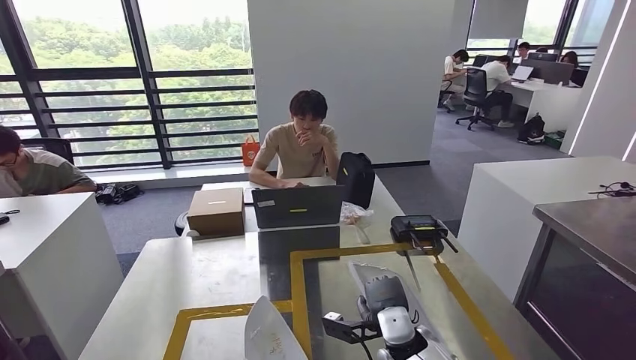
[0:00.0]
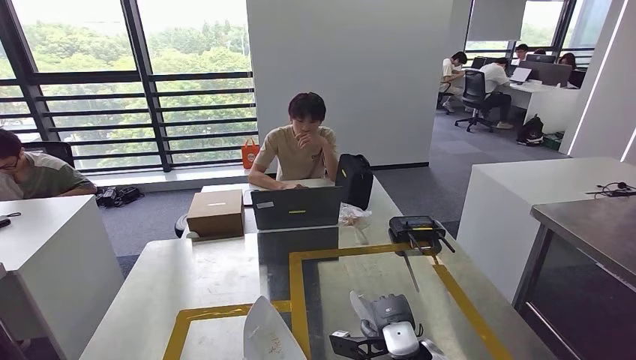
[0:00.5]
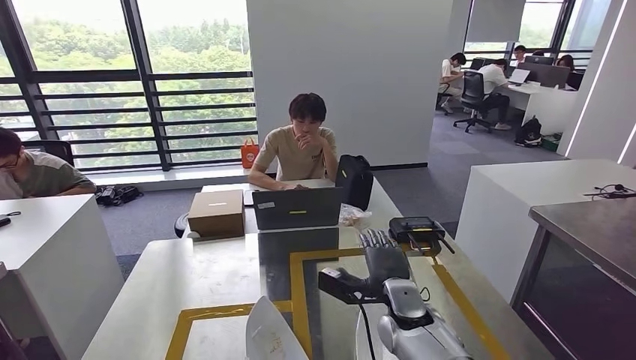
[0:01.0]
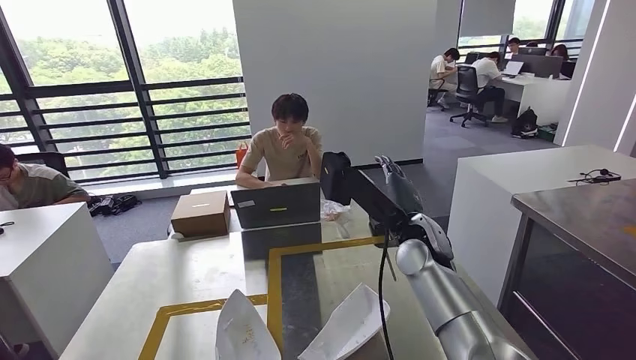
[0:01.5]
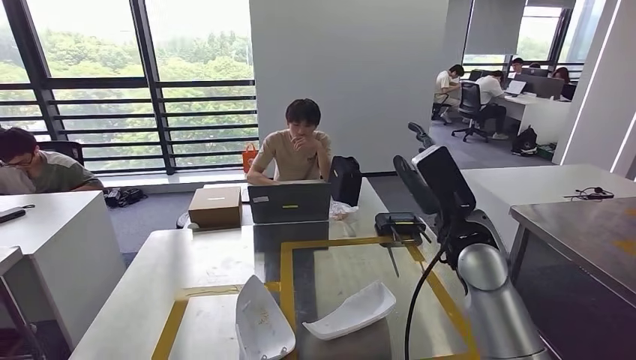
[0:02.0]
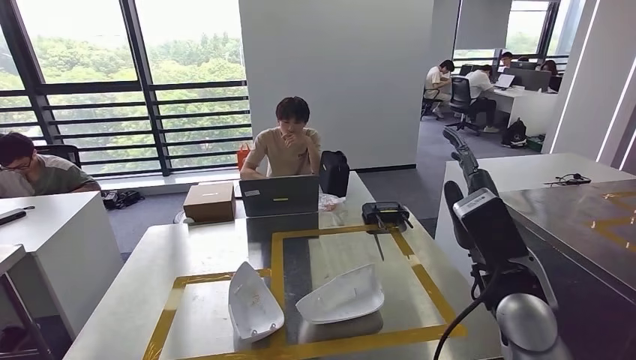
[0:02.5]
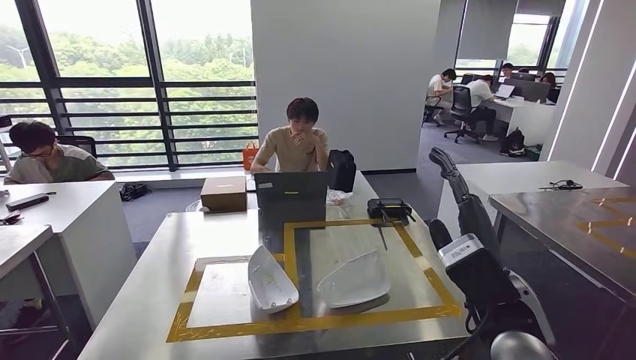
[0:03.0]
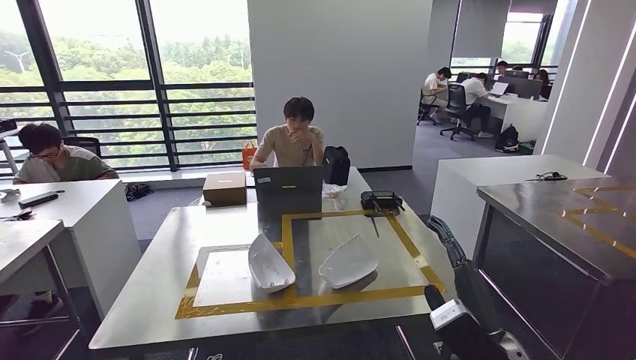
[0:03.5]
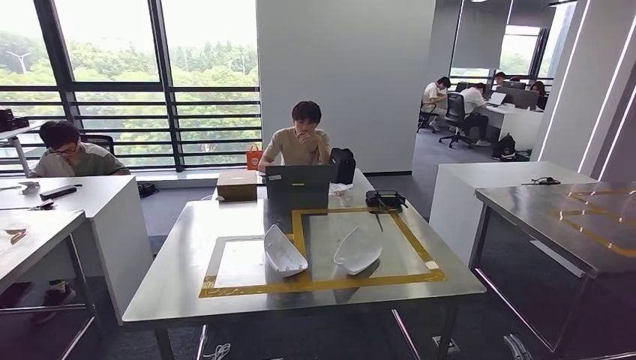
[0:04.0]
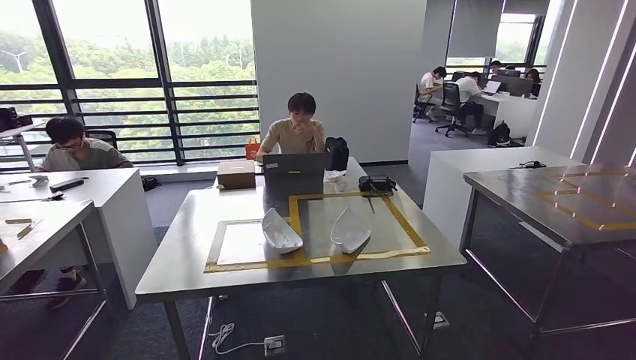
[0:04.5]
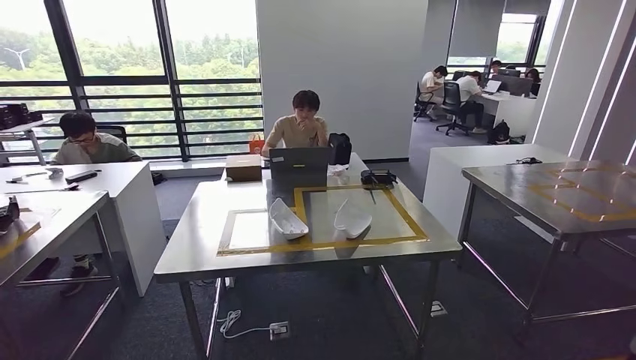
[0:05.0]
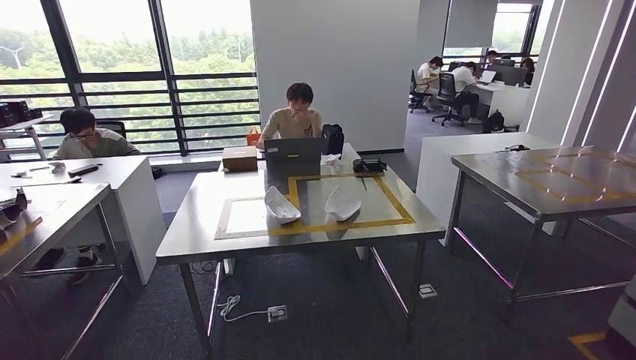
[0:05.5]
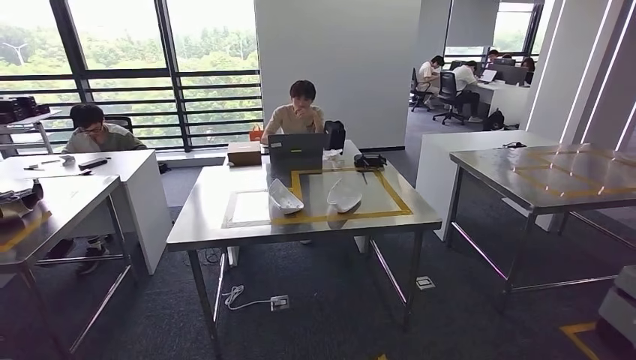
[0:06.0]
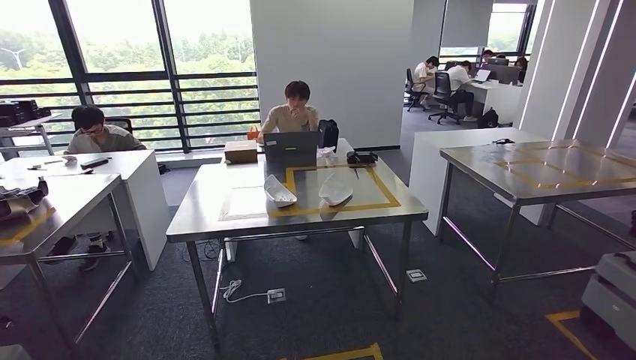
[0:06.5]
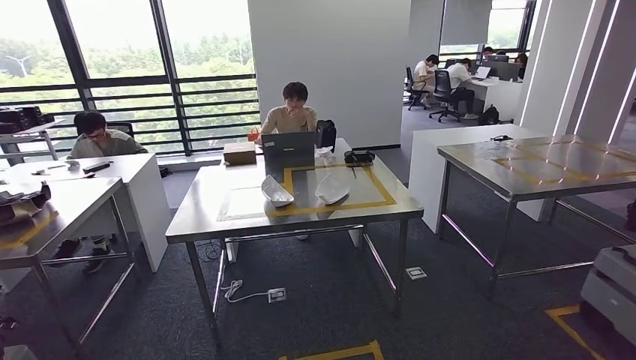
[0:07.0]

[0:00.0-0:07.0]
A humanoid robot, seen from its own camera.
Step, 0:05.0 to 0:07.0: Move to the initial position at the workbench.
